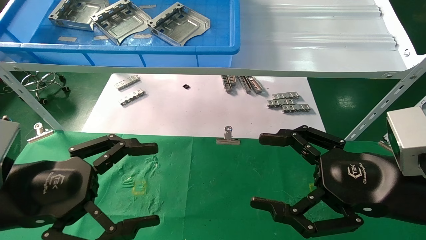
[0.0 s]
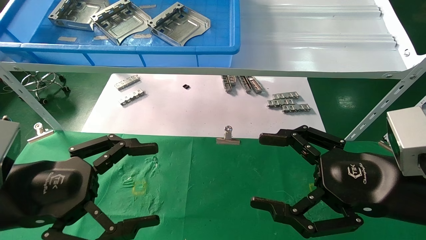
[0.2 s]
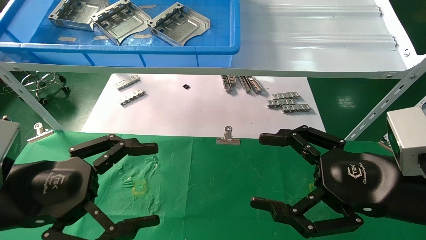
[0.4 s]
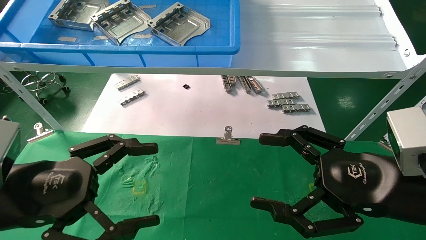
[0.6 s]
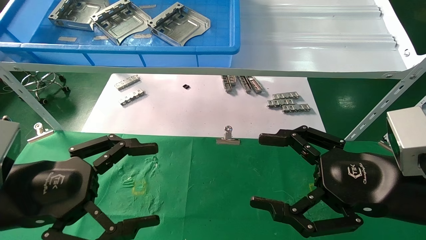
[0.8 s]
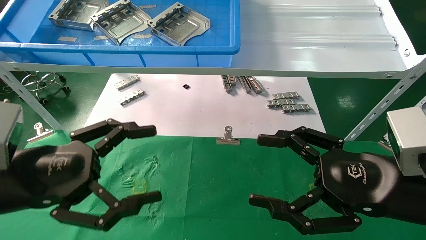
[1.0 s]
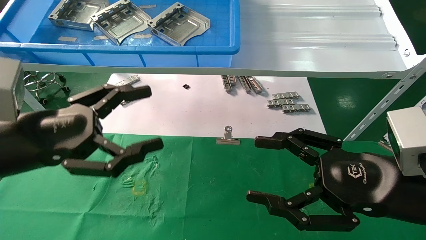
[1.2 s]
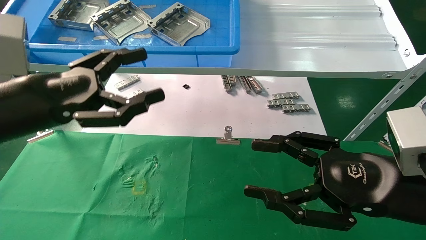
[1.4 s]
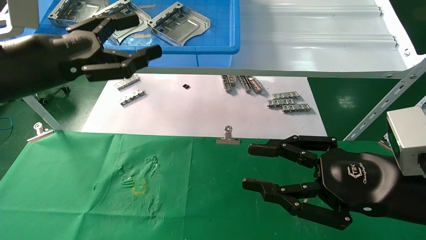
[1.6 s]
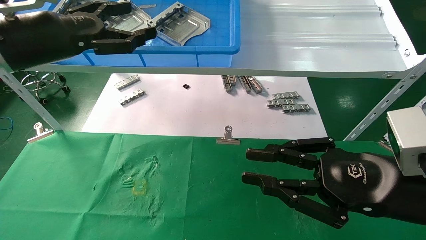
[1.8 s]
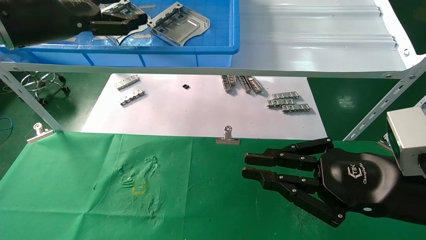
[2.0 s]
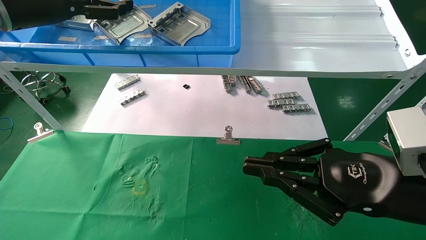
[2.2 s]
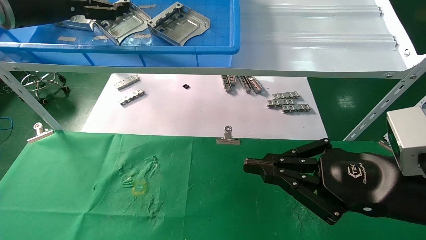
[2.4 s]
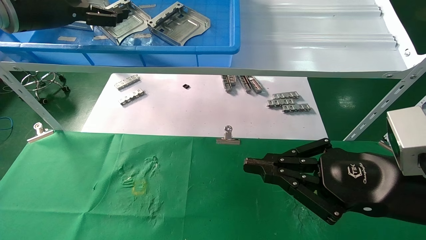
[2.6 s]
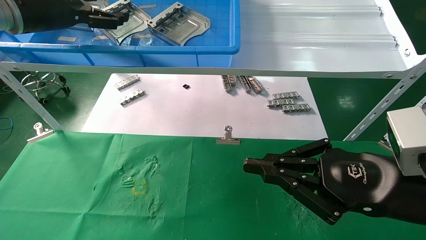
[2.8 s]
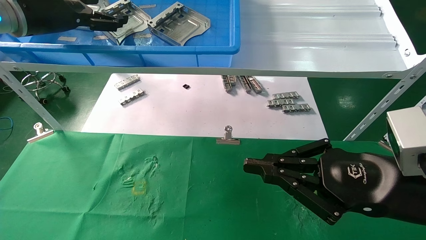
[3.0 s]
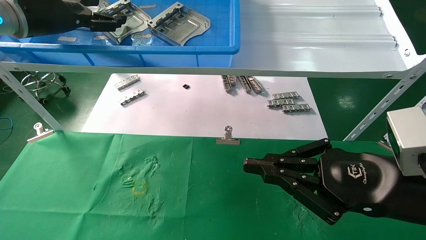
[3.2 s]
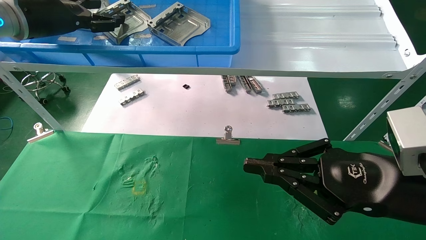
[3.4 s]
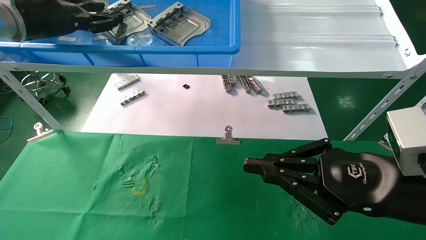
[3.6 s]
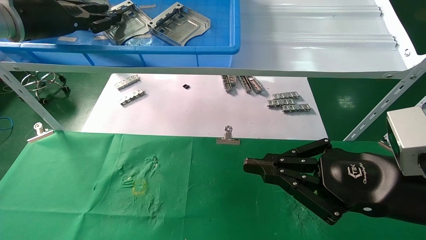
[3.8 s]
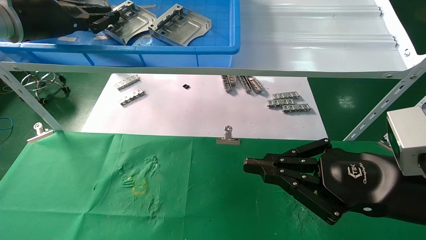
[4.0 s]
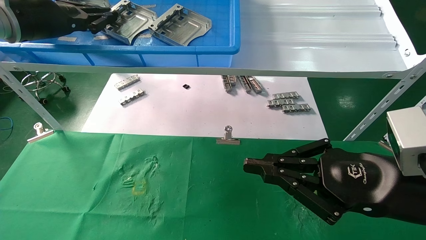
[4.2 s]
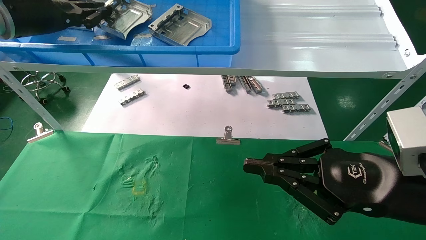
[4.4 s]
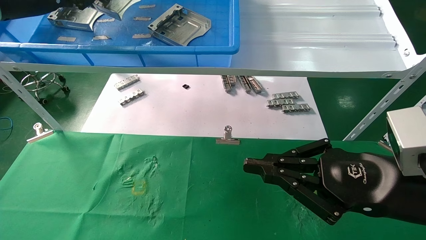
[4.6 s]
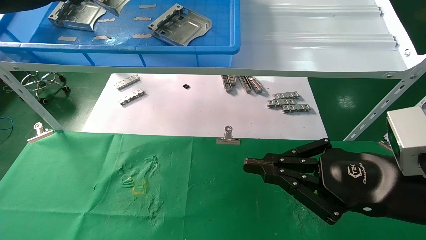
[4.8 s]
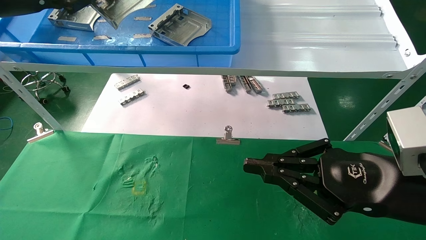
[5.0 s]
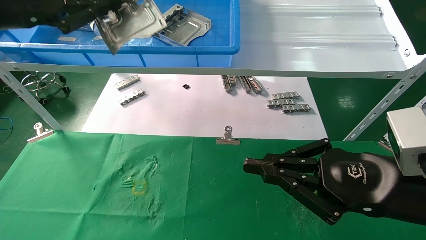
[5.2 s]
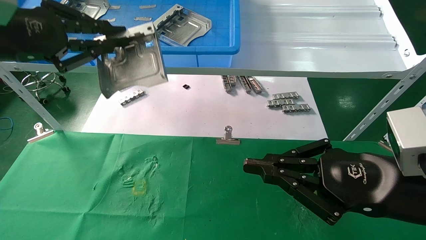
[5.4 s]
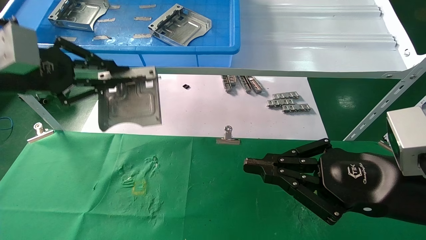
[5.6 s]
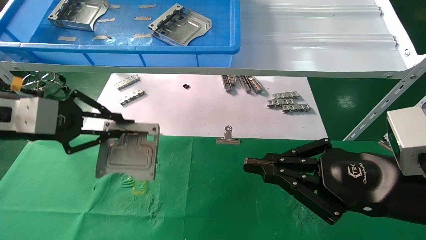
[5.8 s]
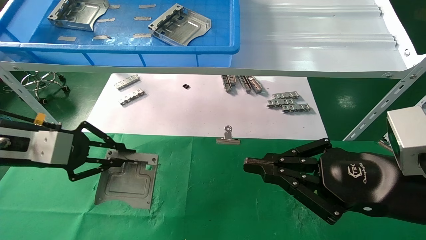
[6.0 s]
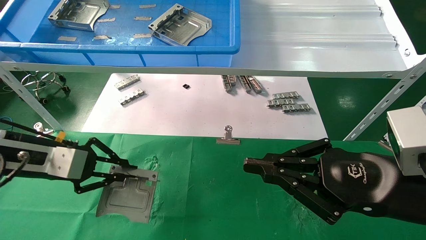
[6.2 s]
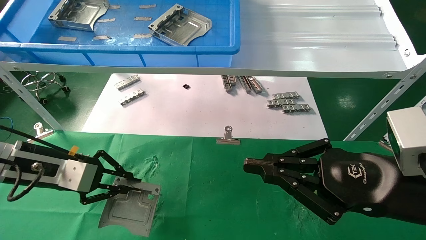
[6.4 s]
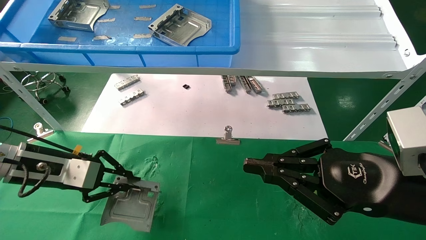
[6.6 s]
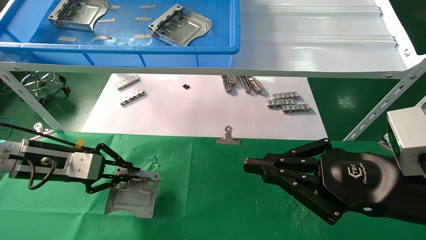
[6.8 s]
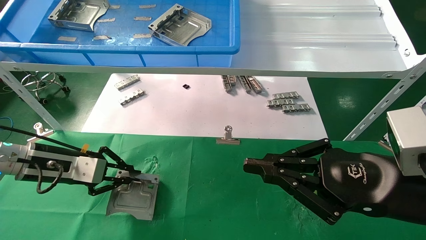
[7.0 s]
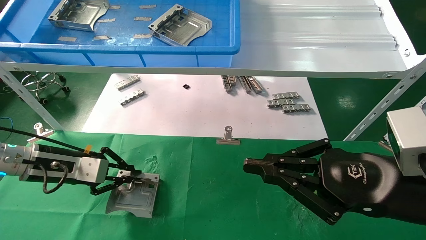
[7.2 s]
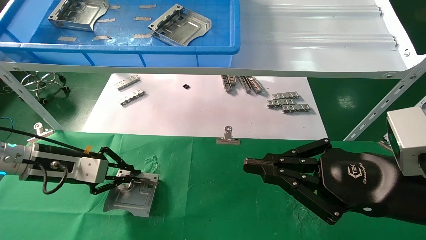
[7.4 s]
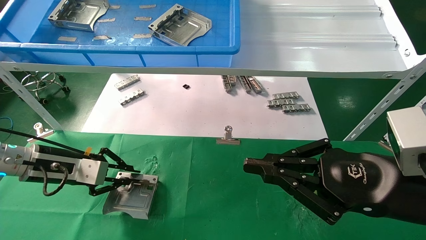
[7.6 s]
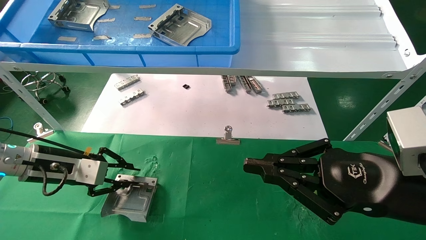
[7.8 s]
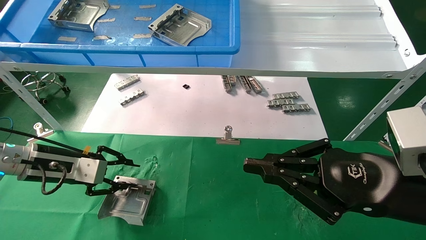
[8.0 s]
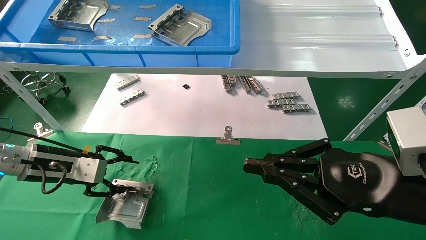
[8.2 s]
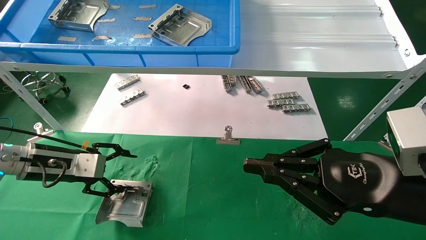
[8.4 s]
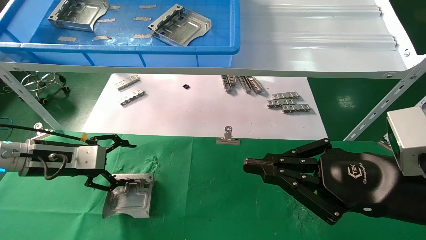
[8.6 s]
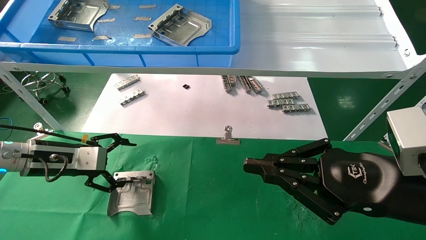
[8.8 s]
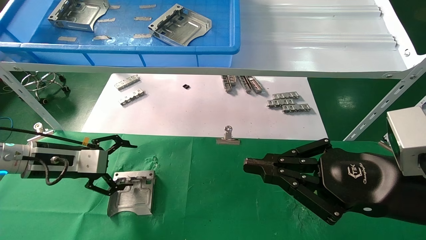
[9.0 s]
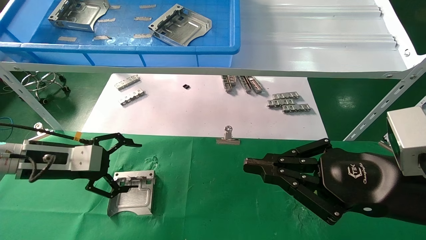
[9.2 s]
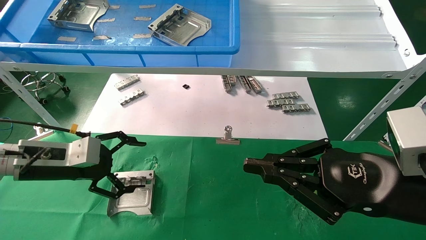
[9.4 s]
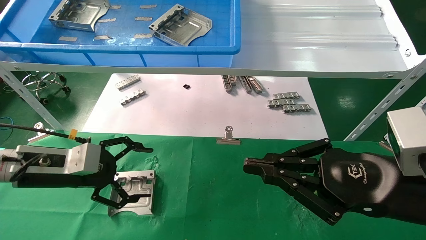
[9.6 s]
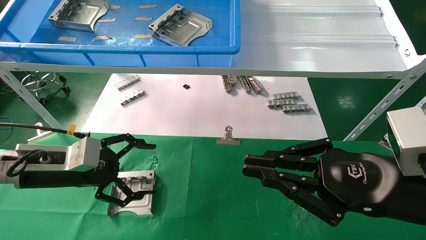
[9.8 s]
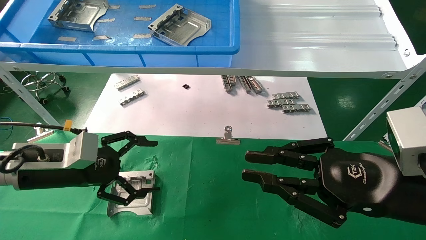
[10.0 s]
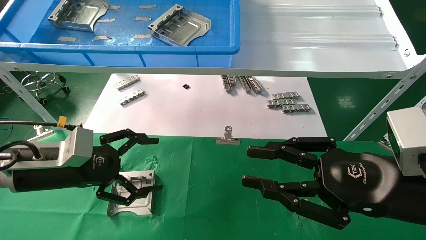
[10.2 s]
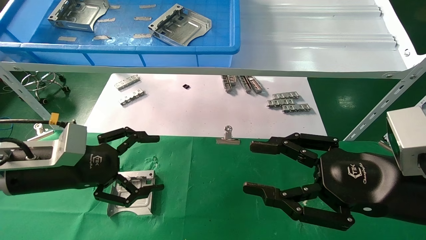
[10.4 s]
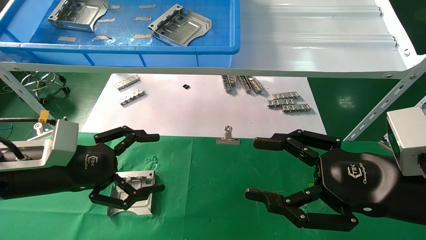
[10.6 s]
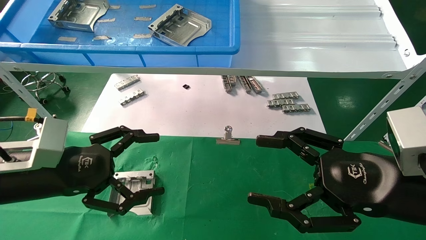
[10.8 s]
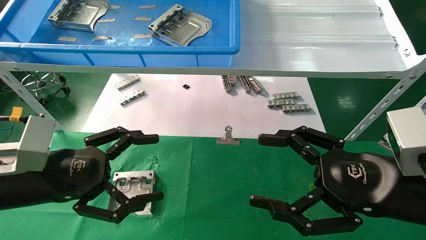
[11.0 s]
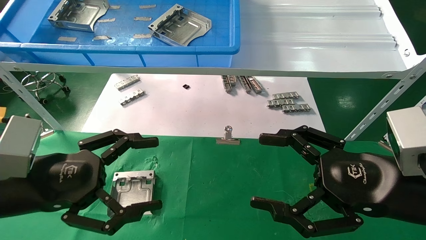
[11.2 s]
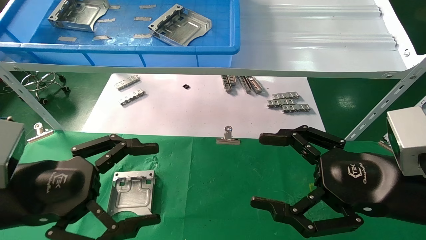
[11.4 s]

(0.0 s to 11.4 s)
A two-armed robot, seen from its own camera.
Task of the whole recording: use the mechanical arm to pick up the parts and place them on the table.
Step, 1.2 s - 4.2 s: Pick up the hard drive bracket from the feeding area.
Step, 4.4 s - 7.8 s: Place the hard drive bracket into the box.
0.0 s - 1.4 s: The left gripper is displaced upward and forward by approximately 10 cm.
1.4 s - 2.8 s: The left gripper shifts roughly 20 cm forward and upward. Meanwhile the right gripper closes its fingers.
2.8 s - 4.2 s: The left gripper closes its fingers.
4.2 s - 5.6 s: The left gripper goes approximately 15 cm backward and downward.
5.6 s - 7.2 s: The left gripper is displaced downward by roughly 20 cm.
7.2 s - 8.6 s: The left gripper opens up.
8.6 s - 10.0 s: The left gripper heads backward, covering roughly 5 cm.
10.0 s - 11.4 s: The left gripper heads backward, covering some 10 cm. The right gripper opens its fingers.

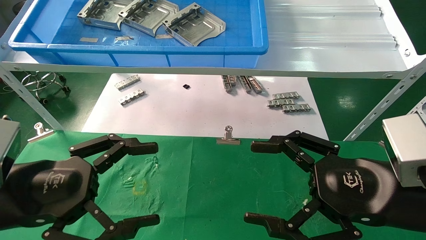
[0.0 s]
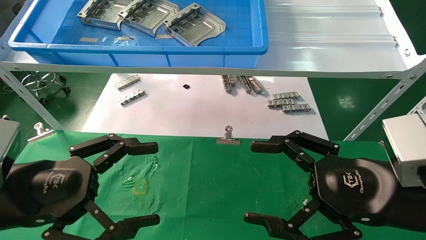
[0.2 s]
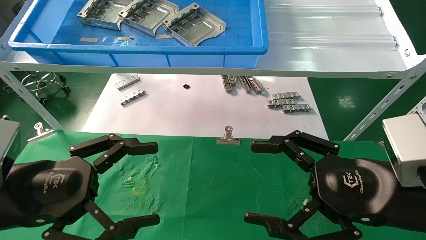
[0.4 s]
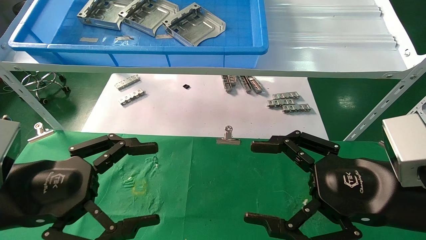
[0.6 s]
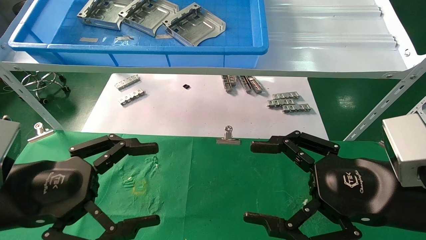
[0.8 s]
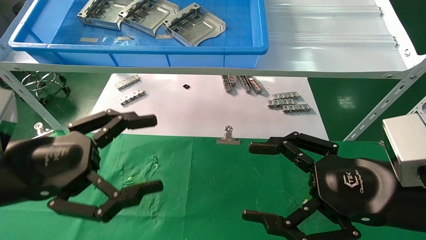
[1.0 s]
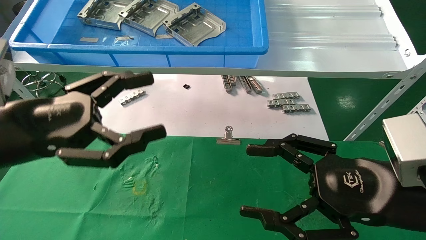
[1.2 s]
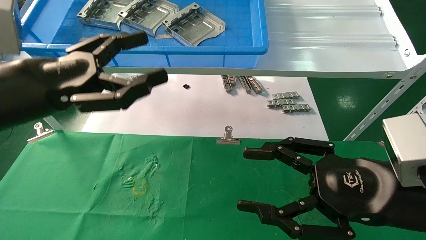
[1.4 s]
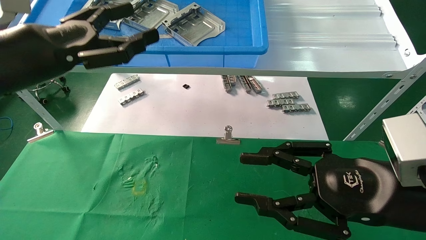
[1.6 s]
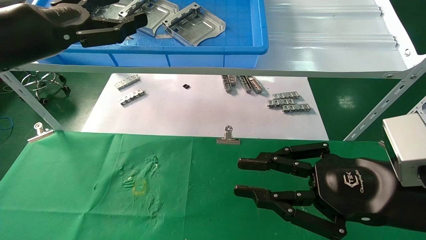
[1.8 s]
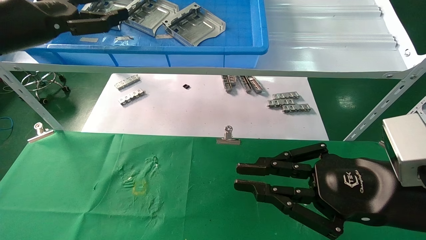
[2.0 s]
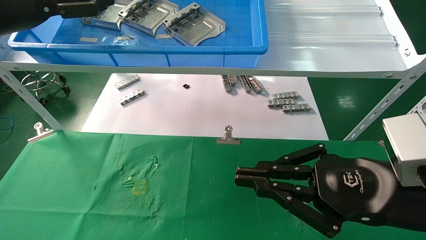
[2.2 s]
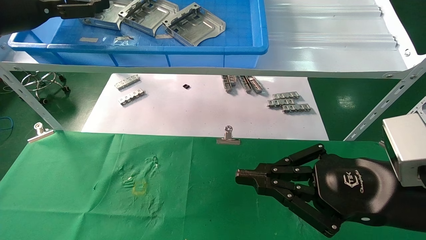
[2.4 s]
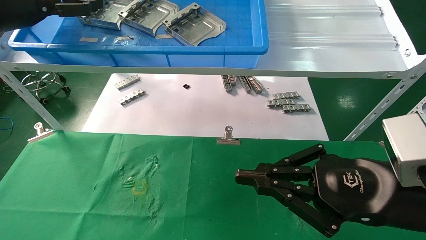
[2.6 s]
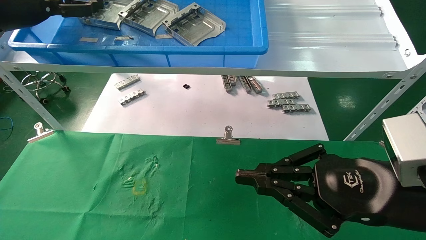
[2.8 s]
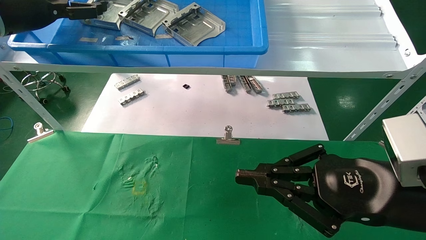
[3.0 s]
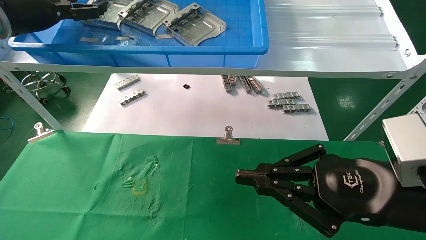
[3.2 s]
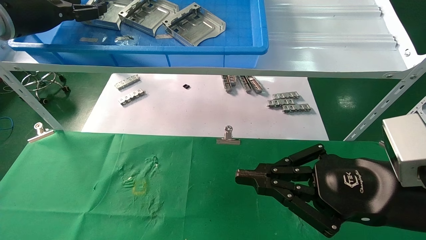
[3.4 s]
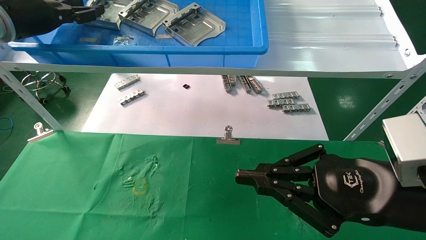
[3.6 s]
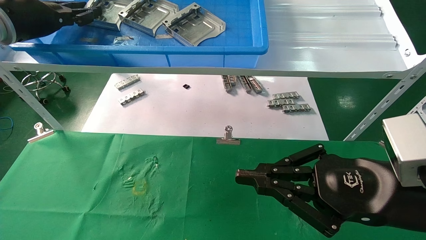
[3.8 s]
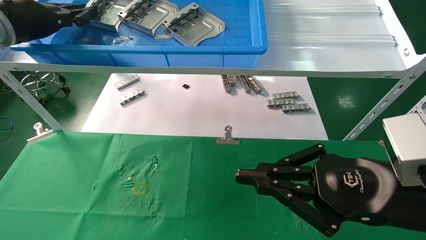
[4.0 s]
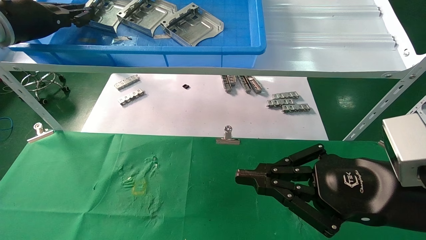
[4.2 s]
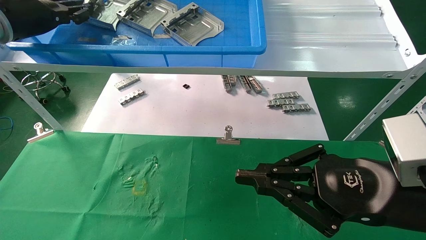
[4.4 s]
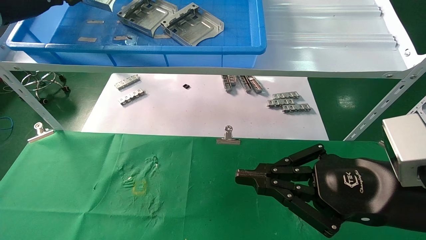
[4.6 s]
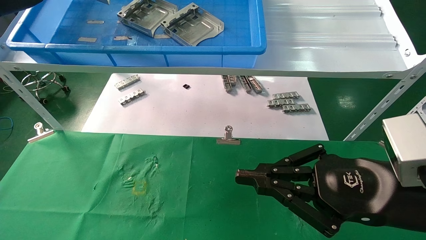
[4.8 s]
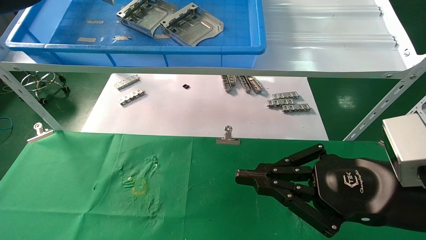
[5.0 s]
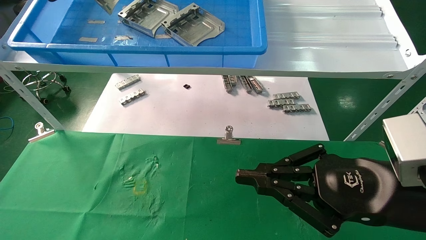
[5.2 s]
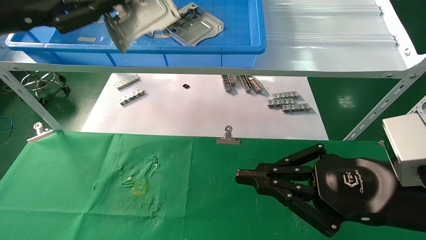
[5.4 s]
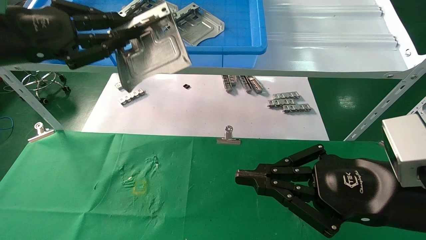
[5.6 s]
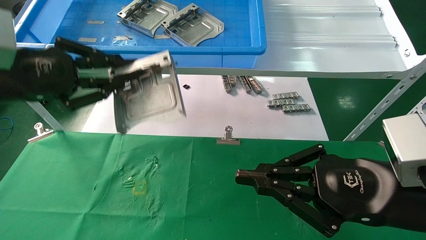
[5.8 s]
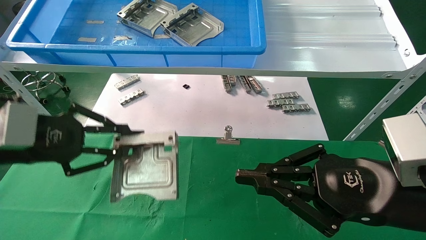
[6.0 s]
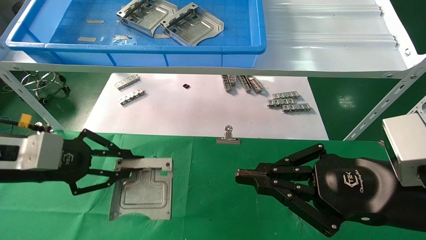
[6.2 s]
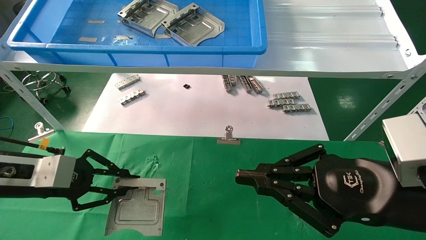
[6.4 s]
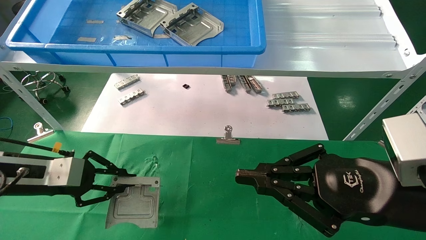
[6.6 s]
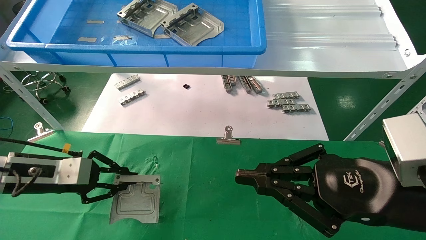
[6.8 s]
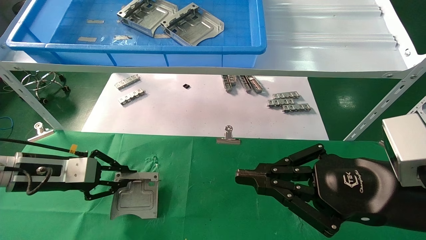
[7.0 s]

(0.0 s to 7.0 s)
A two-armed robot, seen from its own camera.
Task of the whole recording: use the mechanical arm to pick up the parts and place them on the table.
Step, 1.2 s - 4.0 s: Pick up the hard drive bracket from the feeding area.
0.0 s - 1.4 s: The left gripper travels upward and forward by roughly 10 cm.
1.4 s - 2.8 s: The left gripper shifts roughly 20 cm forward, upward and to the left, while the right gripper closes up.
2.8 s - 4.2 s: The left gripper closes.
4.2 s - 5.6 s: The left gripper heads backward, covering roughly 15 cm.
5.6 s - 7.0 s: The left gripper heads downward, covering about 20 cm.
